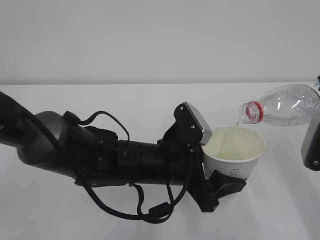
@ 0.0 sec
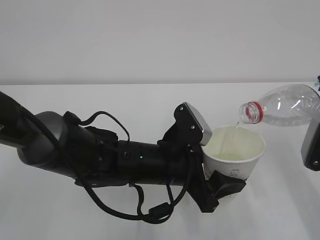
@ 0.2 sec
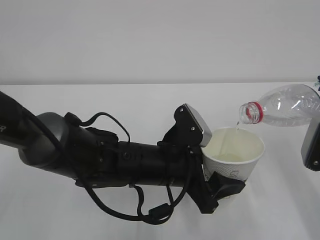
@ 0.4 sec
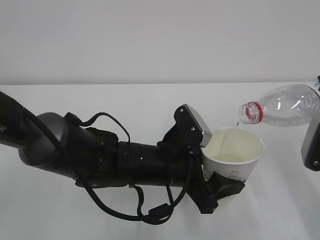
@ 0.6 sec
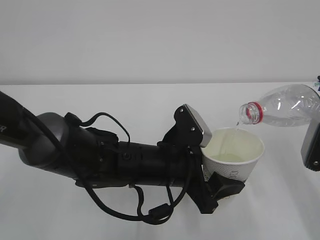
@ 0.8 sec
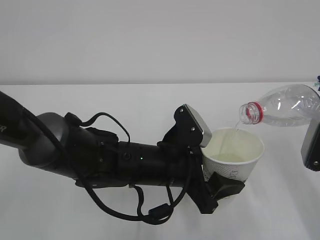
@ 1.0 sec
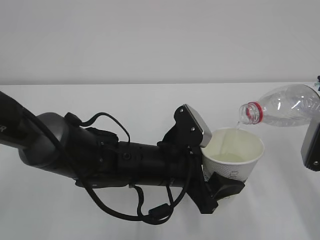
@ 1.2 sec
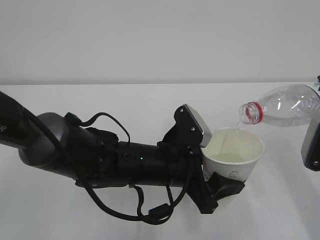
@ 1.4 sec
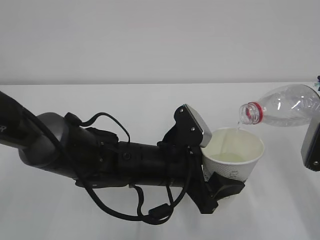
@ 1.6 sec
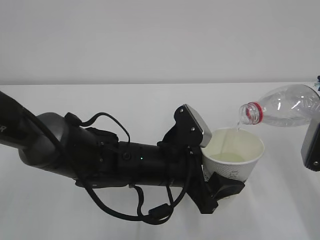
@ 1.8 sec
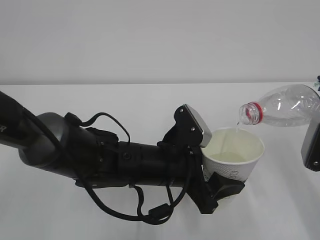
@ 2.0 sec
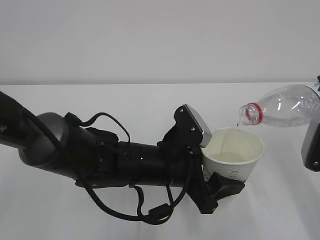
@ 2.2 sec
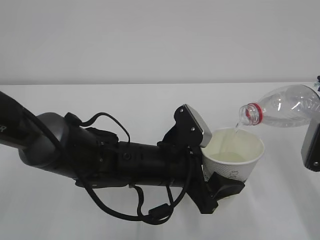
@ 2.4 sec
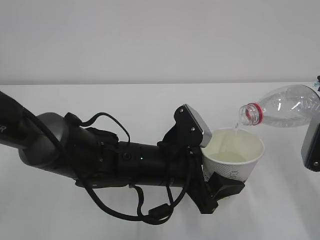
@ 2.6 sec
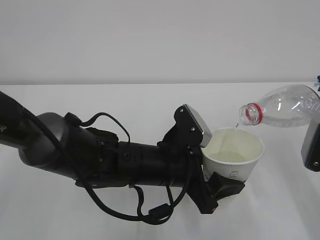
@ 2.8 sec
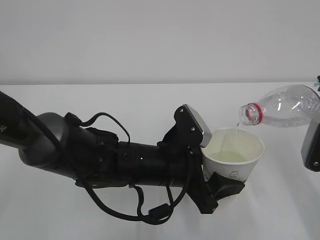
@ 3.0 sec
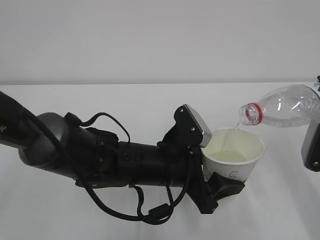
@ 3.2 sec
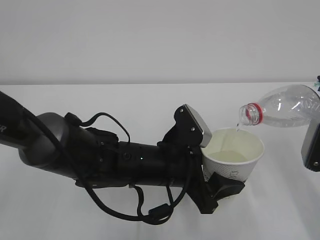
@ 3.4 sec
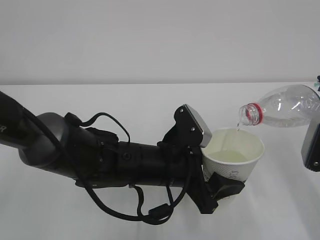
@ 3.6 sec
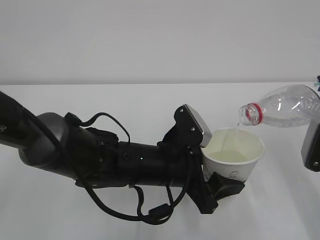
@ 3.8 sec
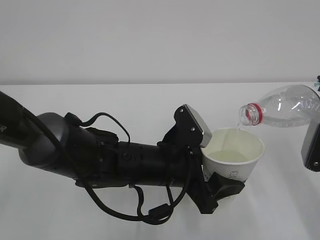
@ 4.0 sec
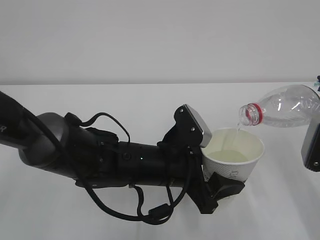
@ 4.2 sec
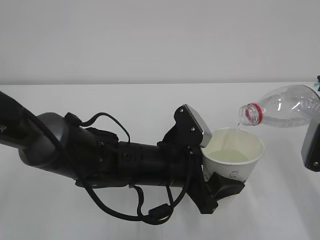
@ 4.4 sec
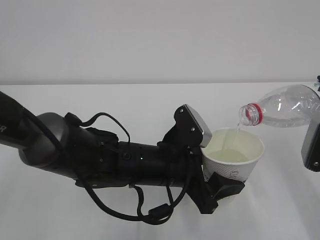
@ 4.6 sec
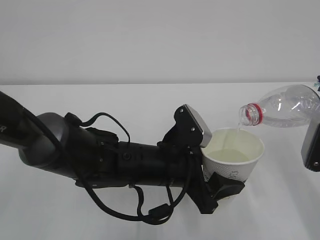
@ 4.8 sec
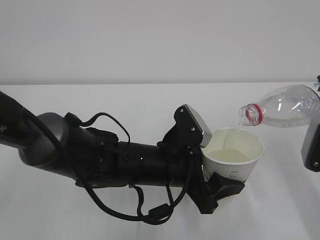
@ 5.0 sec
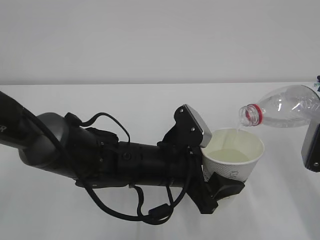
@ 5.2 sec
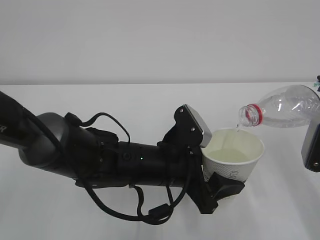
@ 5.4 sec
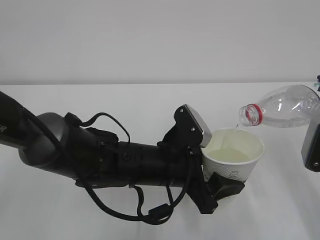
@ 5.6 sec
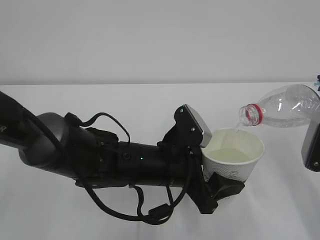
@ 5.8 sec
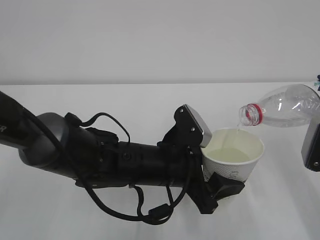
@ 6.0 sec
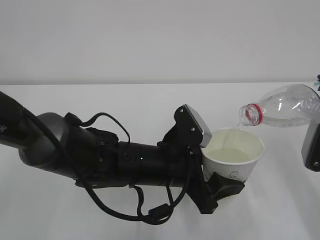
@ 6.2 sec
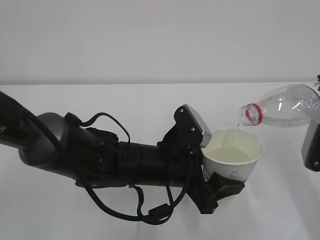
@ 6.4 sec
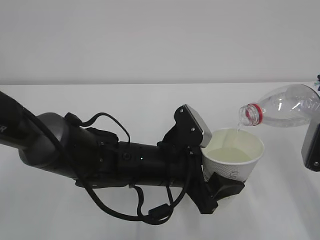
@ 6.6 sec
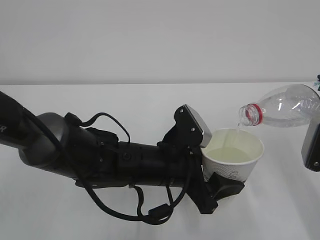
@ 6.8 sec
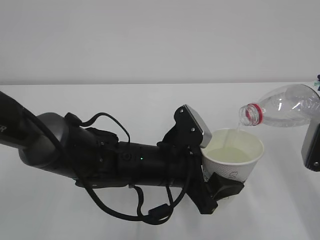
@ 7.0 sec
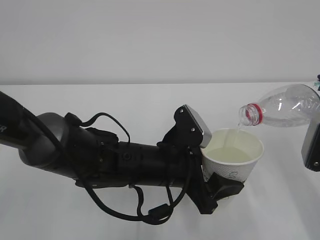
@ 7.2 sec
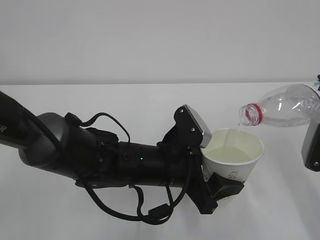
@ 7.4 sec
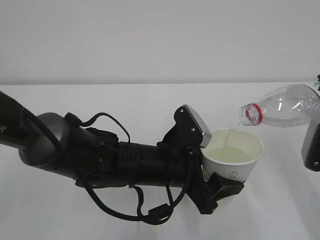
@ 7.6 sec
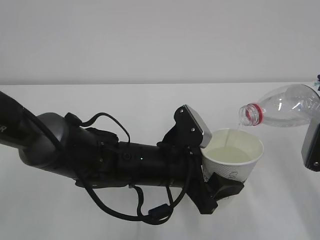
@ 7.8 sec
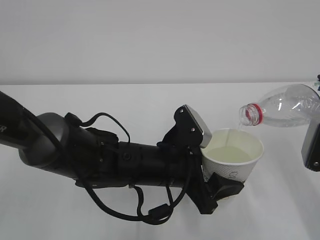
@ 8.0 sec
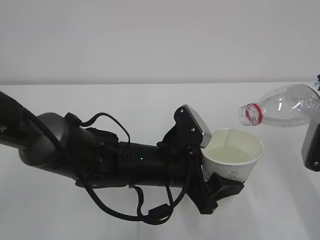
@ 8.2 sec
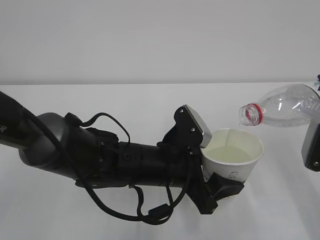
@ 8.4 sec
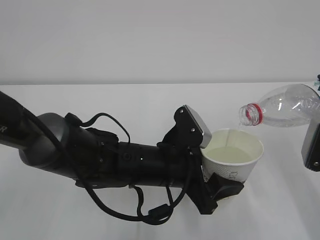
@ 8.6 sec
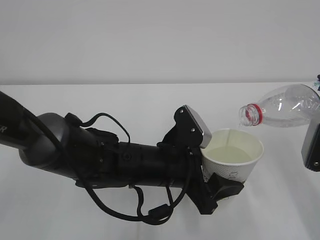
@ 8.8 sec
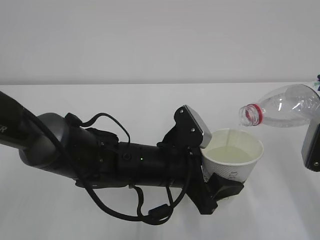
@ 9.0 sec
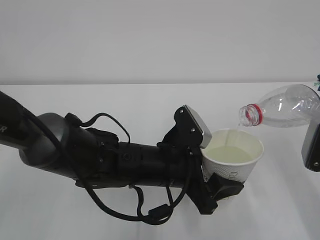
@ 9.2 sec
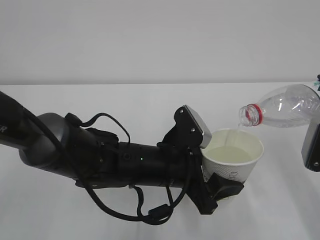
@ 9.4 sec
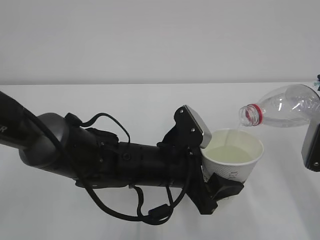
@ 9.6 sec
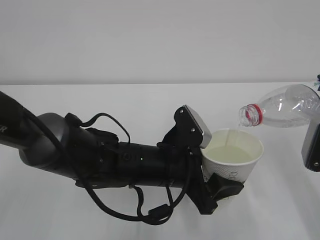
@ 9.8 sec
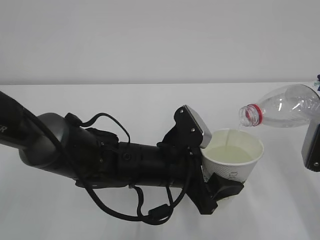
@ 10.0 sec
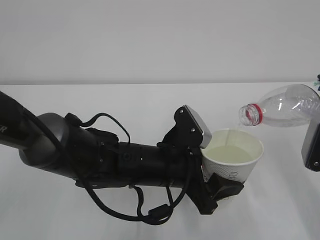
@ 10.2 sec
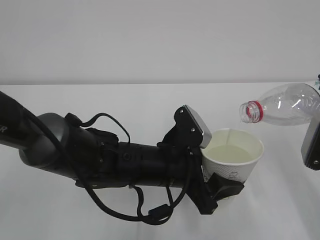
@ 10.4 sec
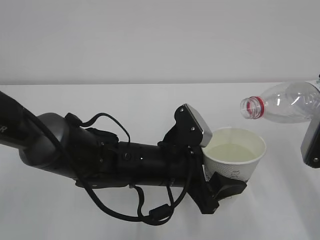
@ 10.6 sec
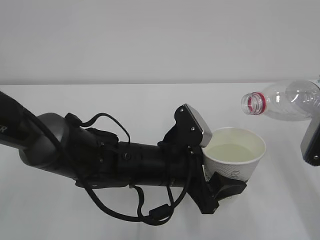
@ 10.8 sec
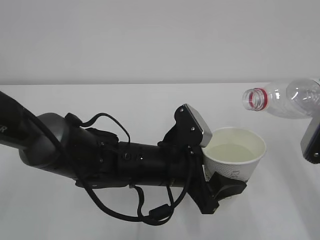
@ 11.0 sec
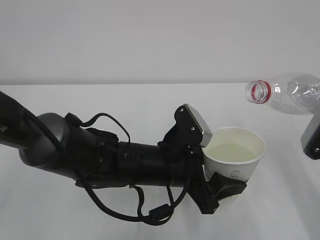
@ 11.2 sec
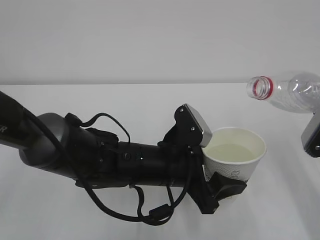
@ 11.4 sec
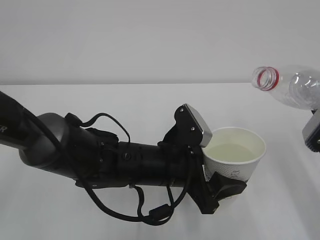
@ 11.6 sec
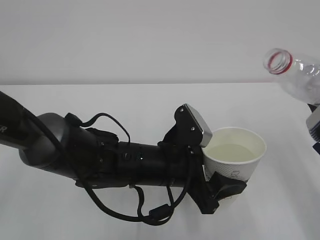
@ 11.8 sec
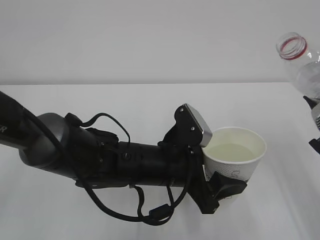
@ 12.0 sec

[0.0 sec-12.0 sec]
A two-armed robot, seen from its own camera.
0.0 sec to 10.4 sec: Both grippers stay put.

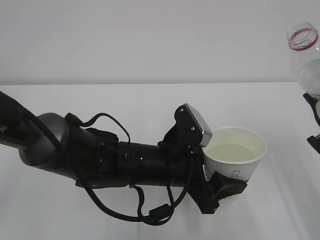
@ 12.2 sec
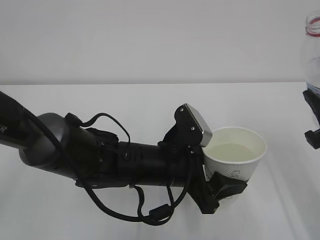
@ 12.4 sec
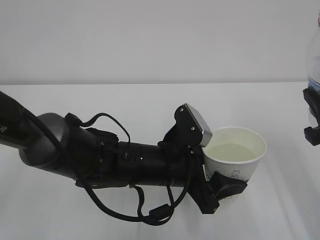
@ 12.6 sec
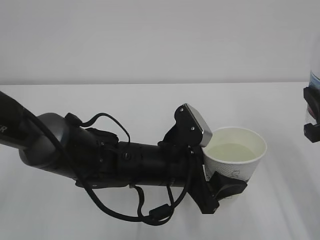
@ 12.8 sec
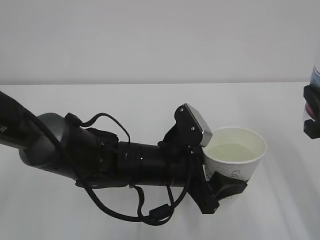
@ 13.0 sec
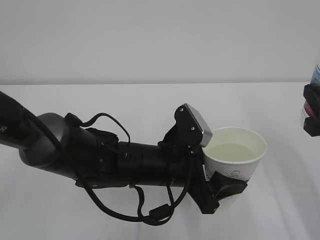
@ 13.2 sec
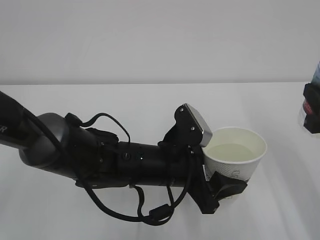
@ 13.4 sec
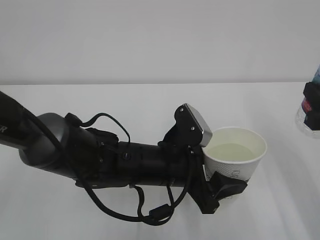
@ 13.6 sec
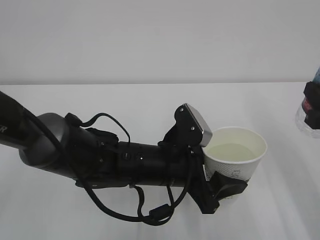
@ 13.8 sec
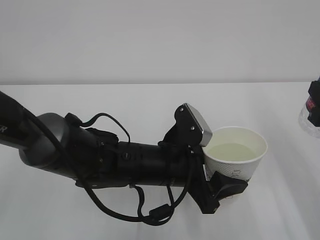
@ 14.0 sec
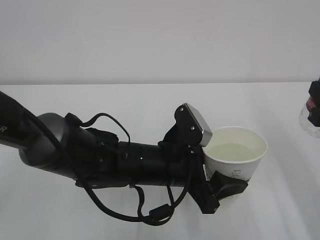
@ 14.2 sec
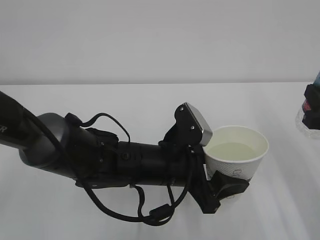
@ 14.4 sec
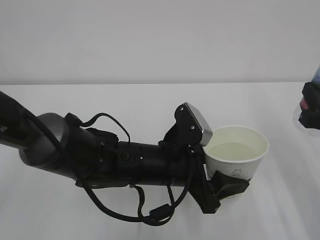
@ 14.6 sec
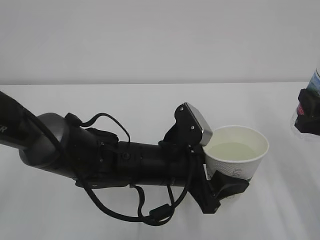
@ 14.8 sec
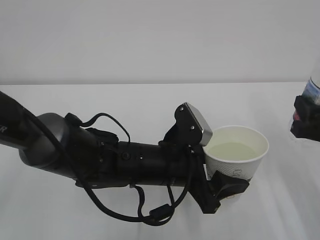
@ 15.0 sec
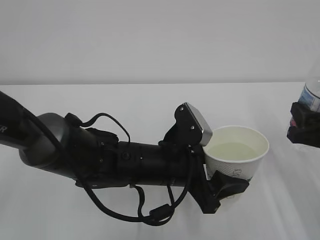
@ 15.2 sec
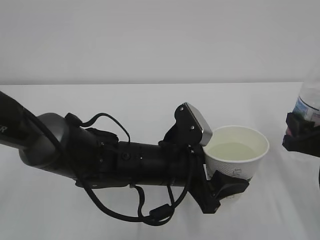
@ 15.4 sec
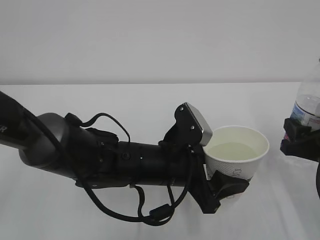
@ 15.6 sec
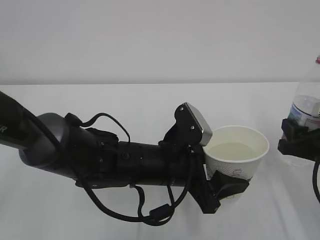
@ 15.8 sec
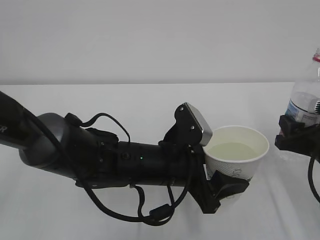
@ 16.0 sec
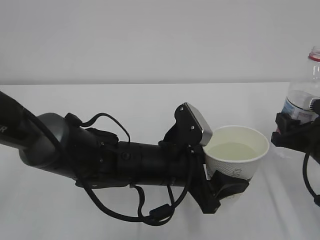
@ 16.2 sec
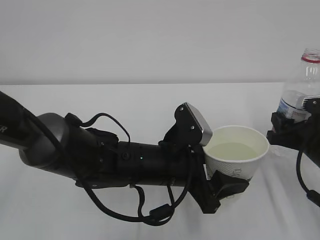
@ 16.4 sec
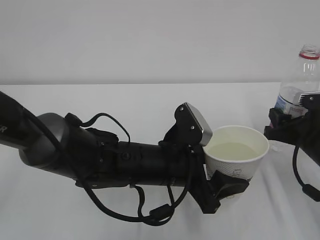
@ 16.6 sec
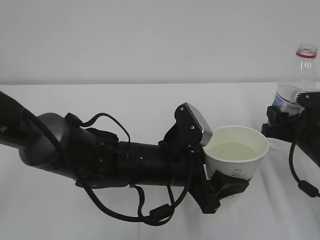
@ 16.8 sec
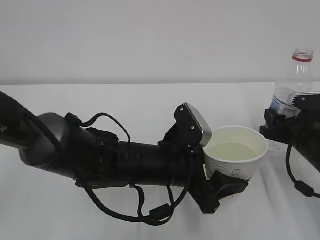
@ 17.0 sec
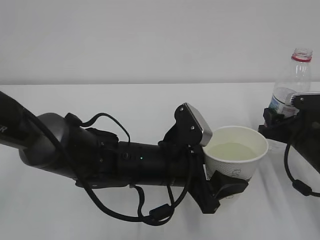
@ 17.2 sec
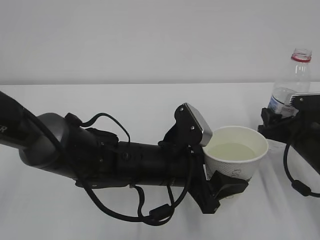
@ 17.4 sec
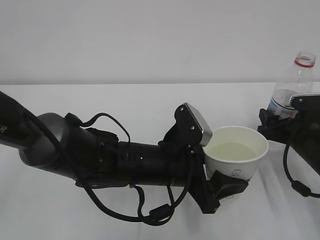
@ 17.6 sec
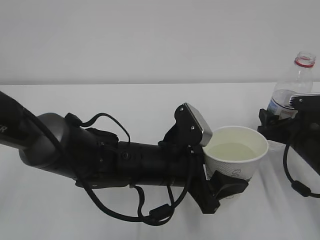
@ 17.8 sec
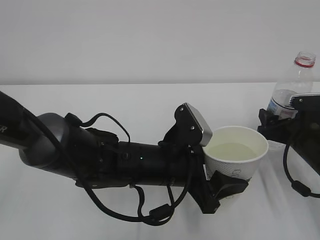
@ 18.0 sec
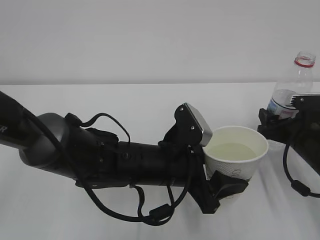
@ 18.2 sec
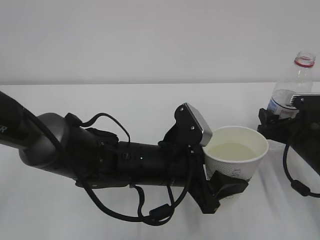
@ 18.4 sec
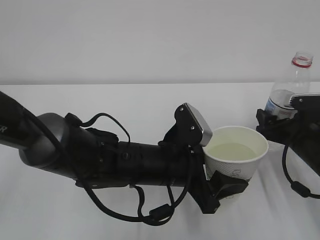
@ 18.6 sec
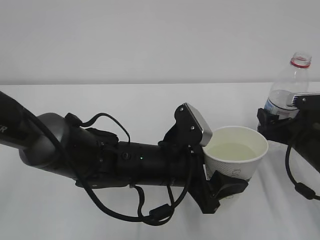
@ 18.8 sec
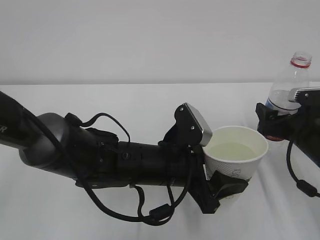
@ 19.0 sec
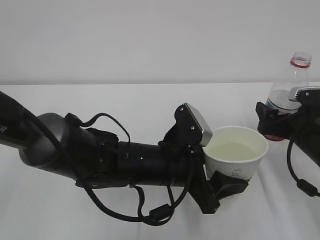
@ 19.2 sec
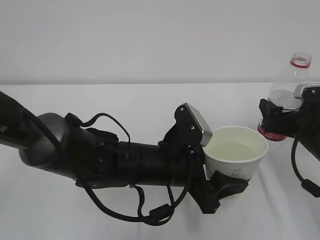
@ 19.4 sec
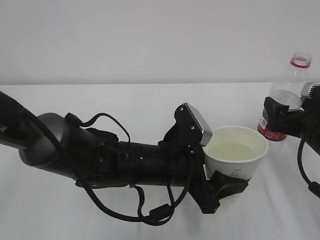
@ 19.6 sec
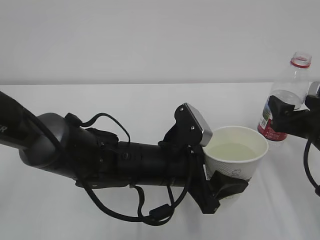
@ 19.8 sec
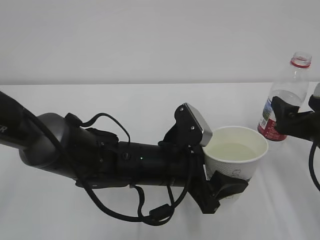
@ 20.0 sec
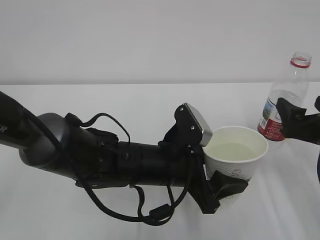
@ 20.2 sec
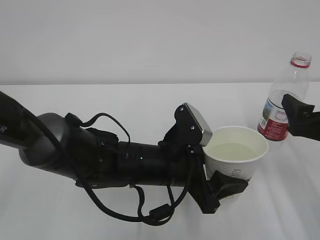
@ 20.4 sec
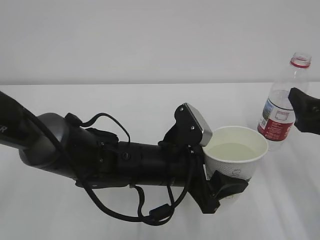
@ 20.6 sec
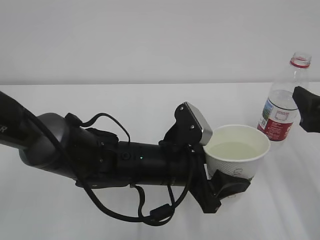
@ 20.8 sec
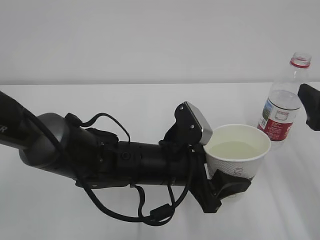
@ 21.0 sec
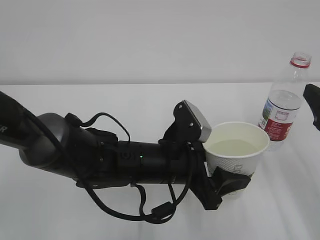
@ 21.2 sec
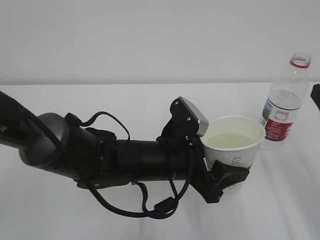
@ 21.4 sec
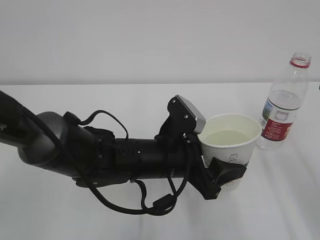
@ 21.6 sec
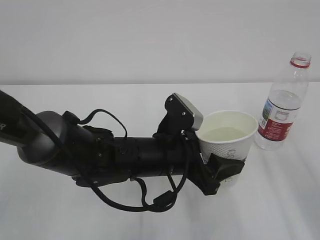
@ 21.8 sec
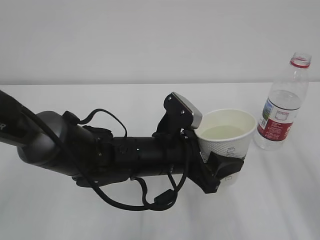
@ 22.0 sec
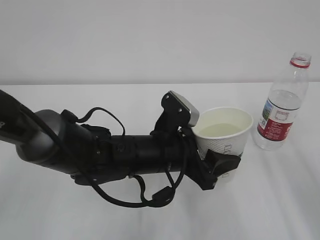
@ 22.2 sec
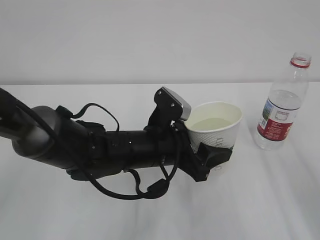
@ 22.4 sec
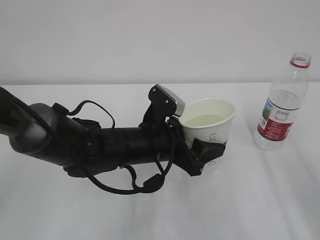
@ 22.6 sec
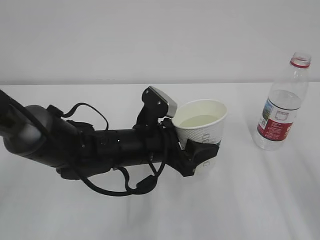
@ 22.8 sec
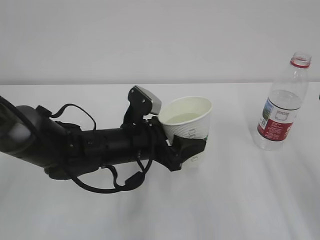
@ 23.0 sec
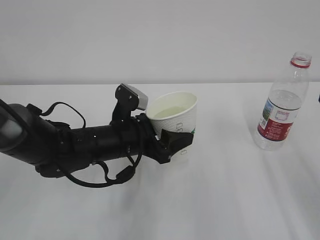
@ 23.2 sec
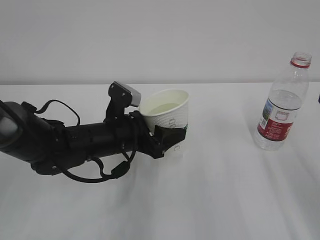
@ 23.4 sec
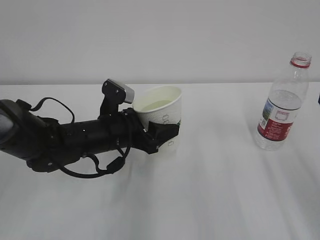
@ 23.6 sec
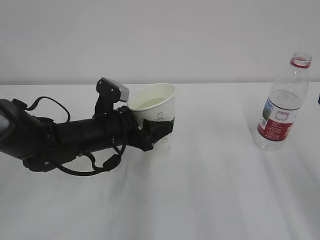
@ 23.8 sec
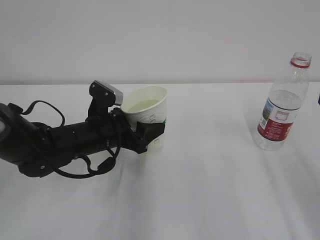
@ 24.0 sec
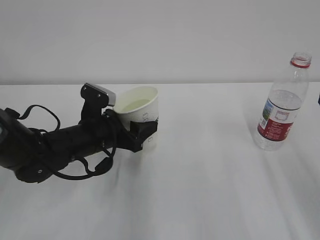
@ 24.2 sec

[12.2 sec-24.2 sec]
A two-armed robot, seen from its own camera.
13.8 sec to 15.2 sec: The right gripper heads downward, covering about 5 cm.
15.2 sec to 16.6 sec: The right gripper heads forward, covering approximately 5 cm.
16.6 sec to 18.2 sec: The right gripper opens.
18.2 sec to 19.8 sec: The right gripper moves some 5 cm.
19.8 sec to 21.2 sec: The right gripper shifts some 10 cm upward and backward.
21.2 sec to 22.6 sec: There are only small adjustments of the grippers.
22.6 sec to 24.2 sec: The left gripper heads to the left, covering about 10 cm.
